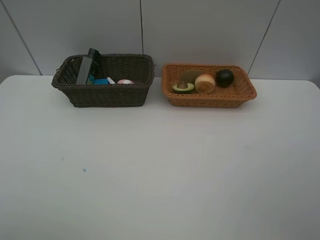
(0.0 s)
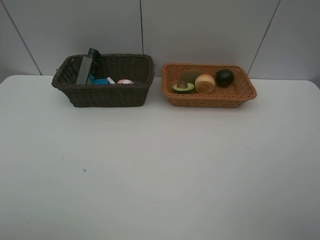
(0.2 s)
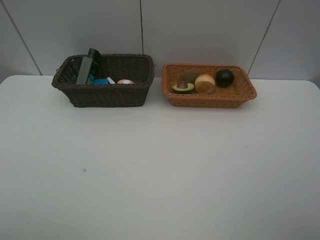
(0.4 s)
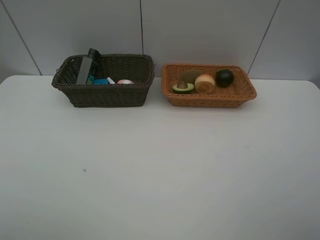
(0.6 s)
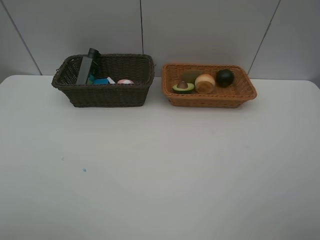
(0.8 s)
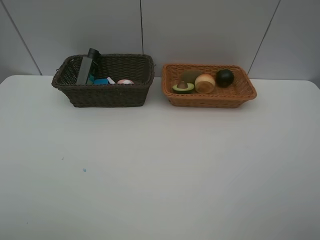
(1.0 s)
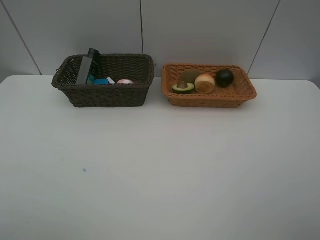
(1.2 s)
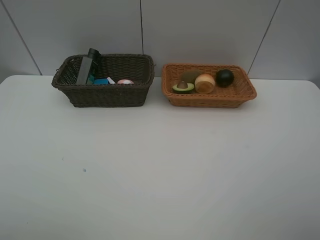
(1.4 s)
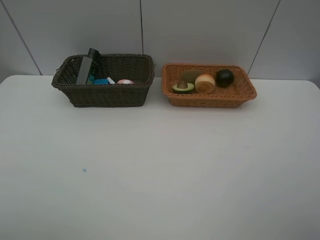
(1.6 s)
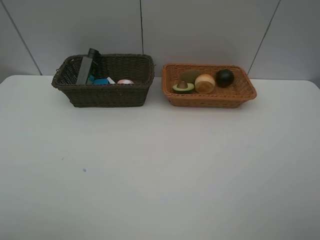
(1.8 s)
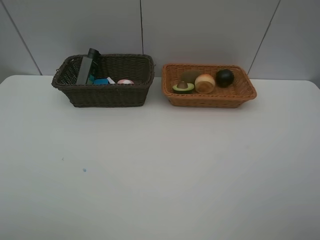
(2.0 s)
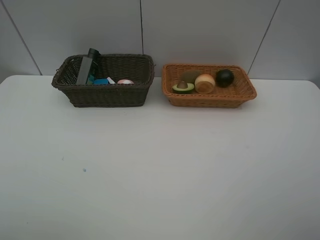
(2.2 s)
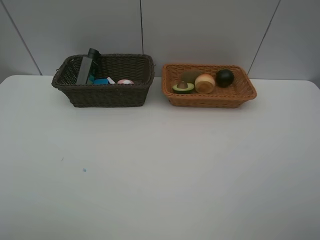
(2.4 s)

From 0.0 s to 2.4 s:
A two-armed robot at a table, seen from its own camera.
Task of the whole recording: Place multiple objects separately in different baskets.
From 1.2 s to 2.4 s: Neither gripper changes place.

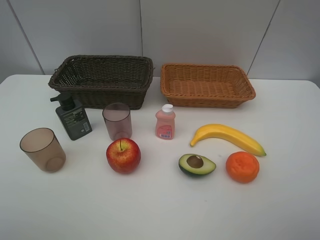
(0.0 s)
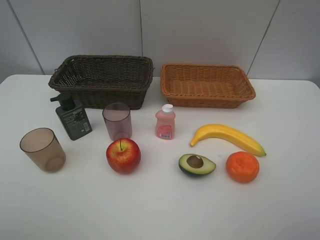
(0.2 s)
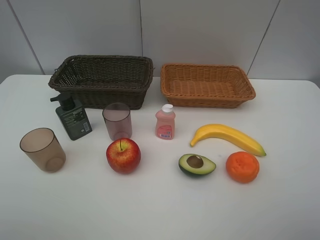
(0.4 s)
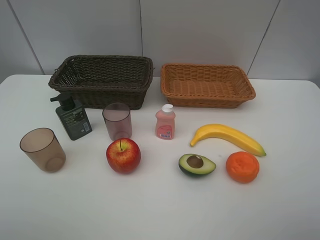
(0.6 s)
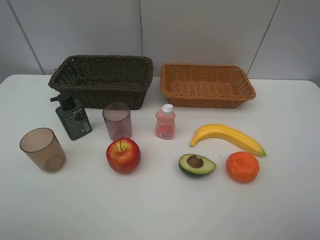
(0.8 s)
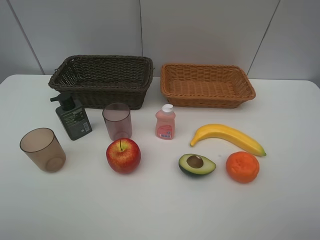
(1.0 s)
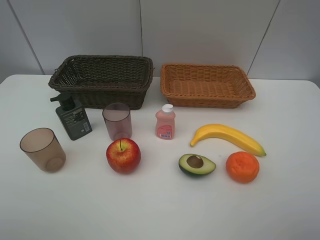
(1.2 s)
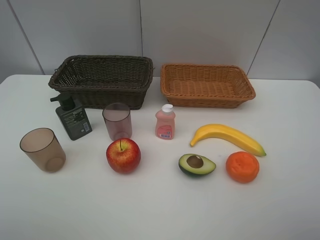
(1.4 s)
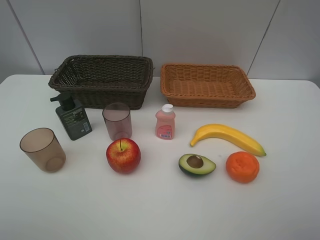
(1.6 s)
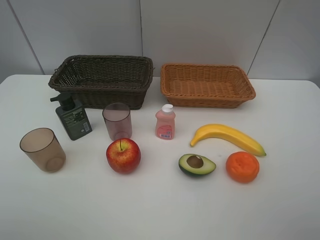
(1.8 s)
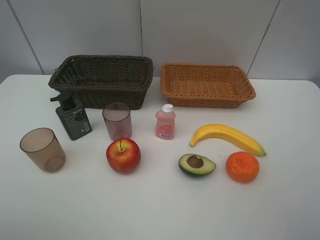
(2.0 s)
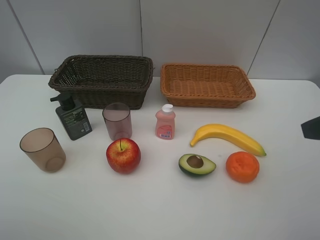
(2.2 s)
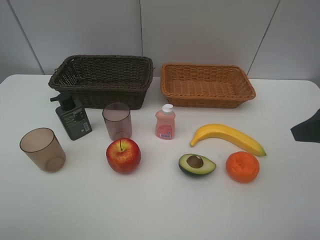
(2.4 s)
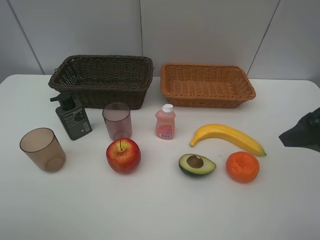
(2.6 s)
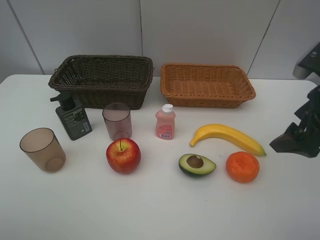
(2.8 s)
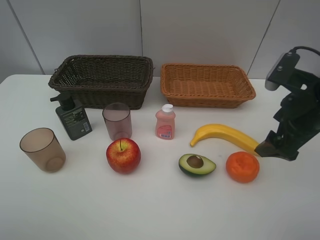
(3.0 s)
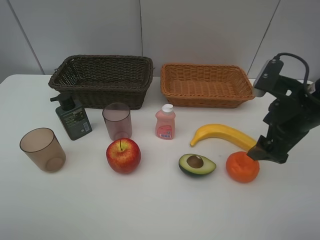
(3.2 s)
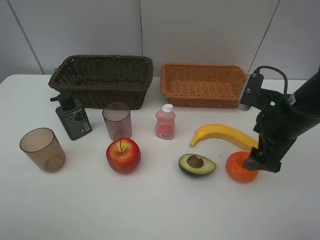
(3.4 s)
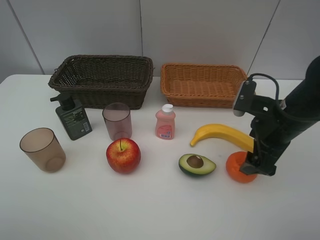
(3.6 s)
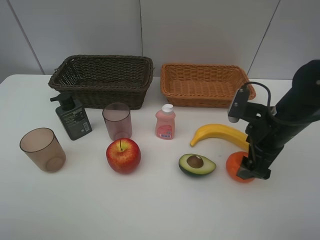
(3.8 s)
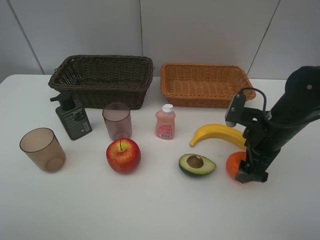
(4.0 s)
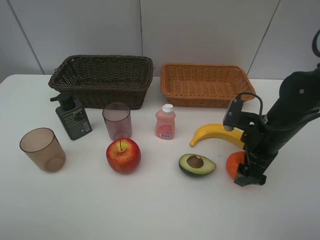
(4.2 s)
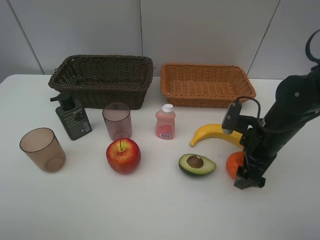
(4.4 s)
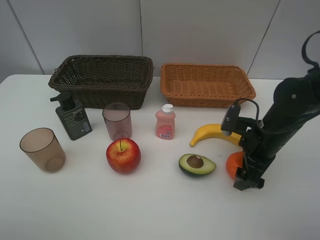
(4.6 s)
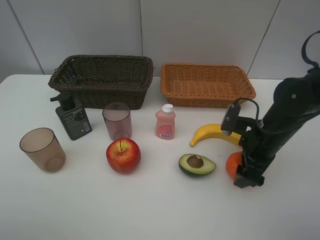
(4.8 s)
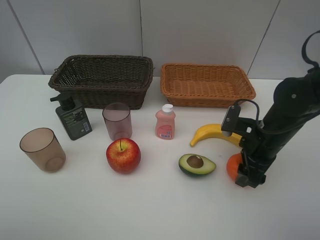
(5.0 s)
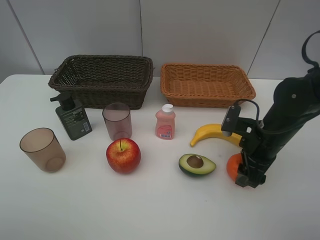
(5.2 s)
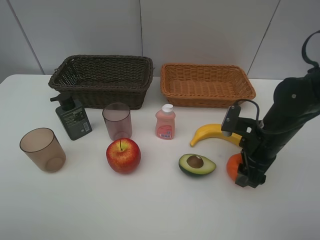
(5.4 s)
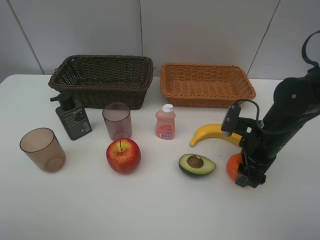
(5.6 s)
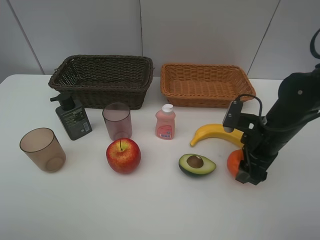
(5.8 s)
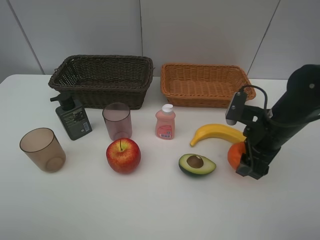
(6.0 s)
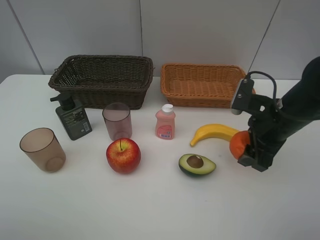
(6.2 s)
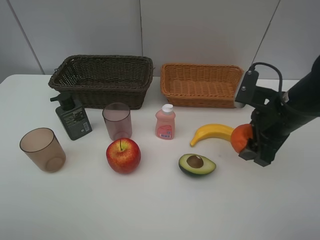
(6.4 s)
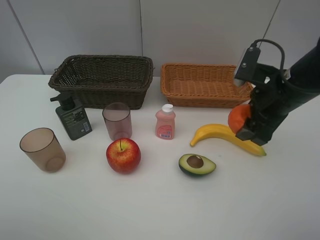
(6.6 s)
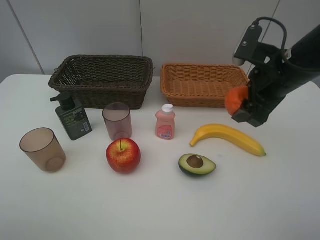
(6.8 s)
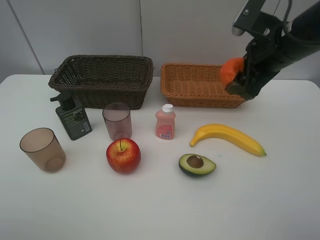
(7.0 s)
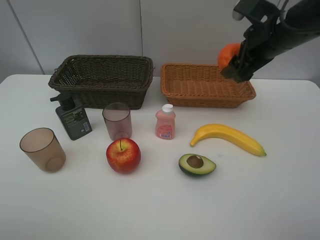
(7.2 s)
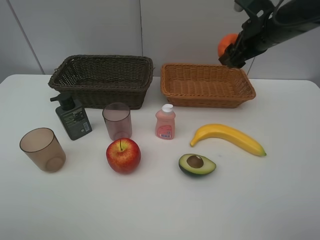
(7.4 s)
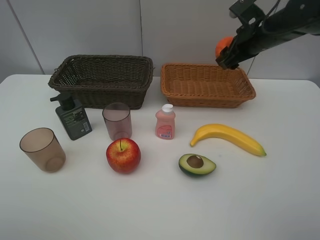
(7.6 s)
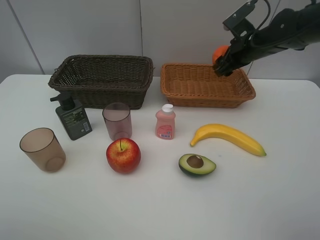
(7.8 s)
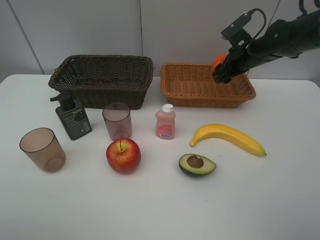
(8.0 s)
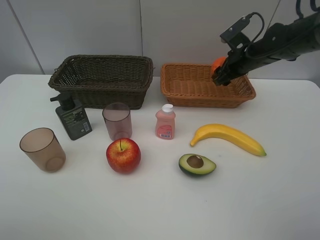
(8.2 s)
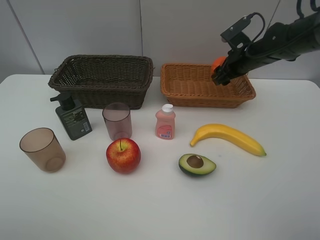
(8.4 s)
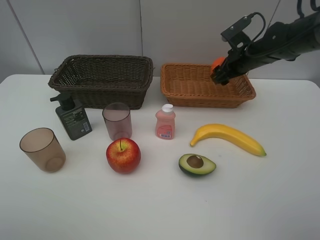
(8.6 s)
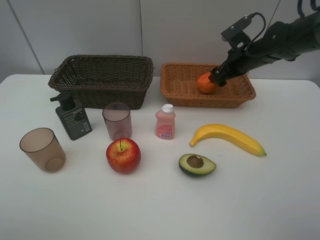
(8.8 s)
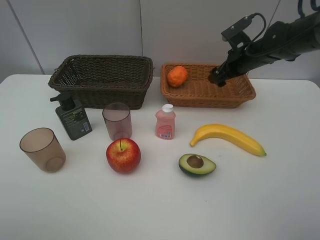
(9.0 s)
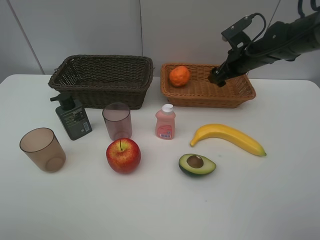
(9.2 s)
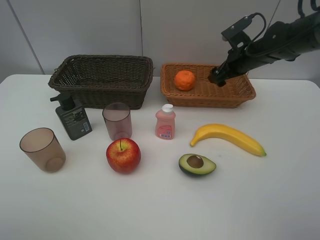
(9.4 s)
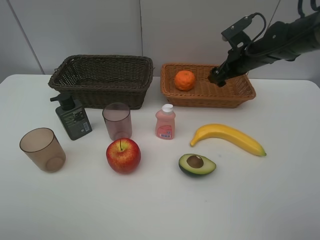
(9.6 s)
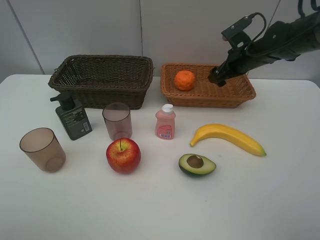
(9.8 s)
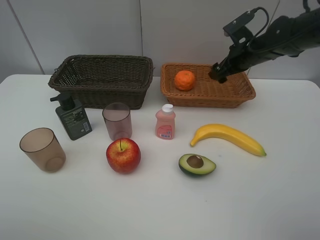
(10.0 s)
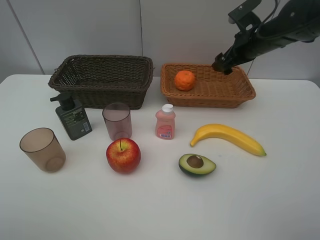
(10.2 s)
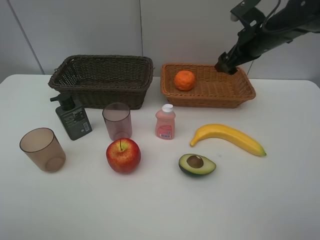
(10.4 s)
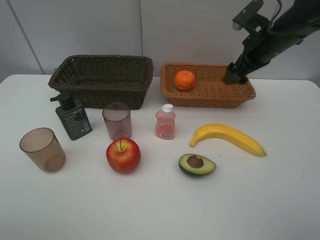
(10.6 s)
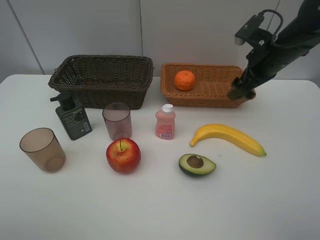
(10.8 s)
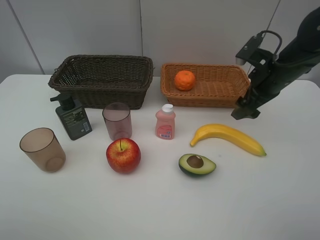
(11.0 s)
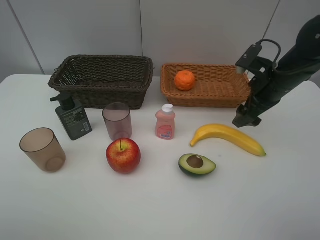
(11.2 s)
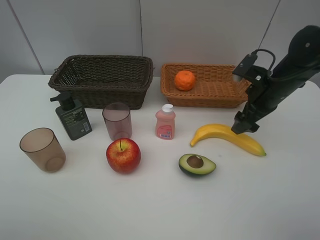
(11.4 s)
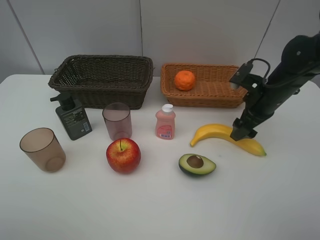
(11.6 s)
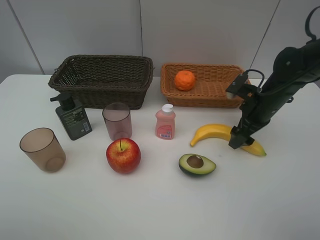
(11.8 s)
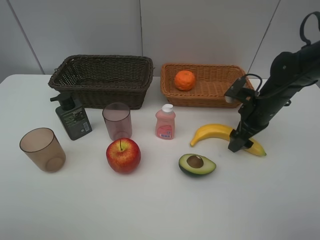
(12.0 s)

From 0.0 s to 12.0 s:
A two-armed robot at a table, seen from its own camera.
Task of the whole recording: Place multiple objects separately in different baskets.
Step, from 0.0 s to 5.8 s: Pick up the orange with right gripper.
Step, from 6.0 s to 8.8 s: Place the orange in the light basket with right gripper.
From 1.6 s to 3.0 s: The right gripper heads forward and downward, covering about 20 cm.
From 3.0 s to 4.4 s: The right gripper travels downward by about 10 cm.
From 4.4 s to 6.0 s: The right gripper closes its fingers.
From 6.0 s to 7.6 s: The right gripper is displaced forward and upward by about 20 cm.
From 7.6 s to 9.0 s: The right gripper heads downward, covering some 5 cm, and opens its fingers.
From 9.0 s to 10.4 s: The right gripper heads upward, covering roughly 5 cm.
From 10.4 s to 12.0 s: The right gripper travels downward and backward by about 15 cm.

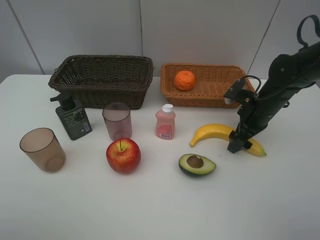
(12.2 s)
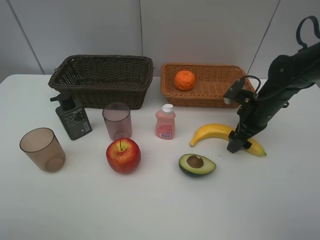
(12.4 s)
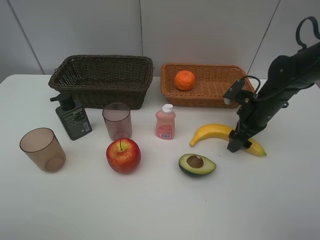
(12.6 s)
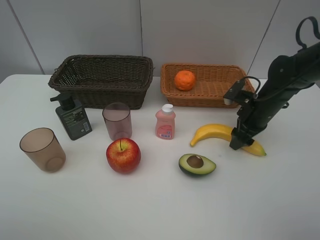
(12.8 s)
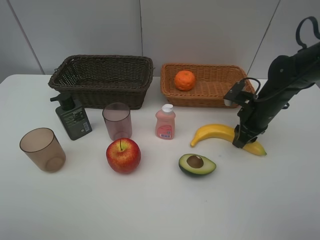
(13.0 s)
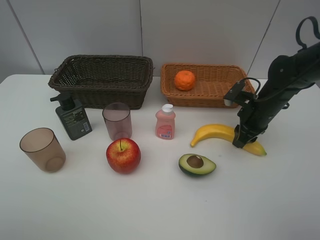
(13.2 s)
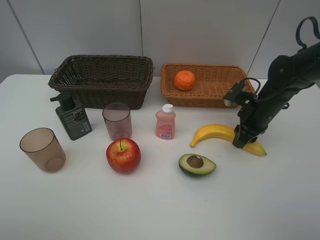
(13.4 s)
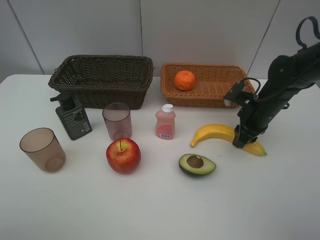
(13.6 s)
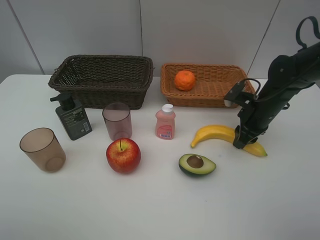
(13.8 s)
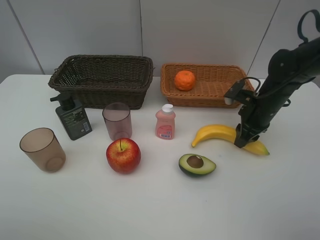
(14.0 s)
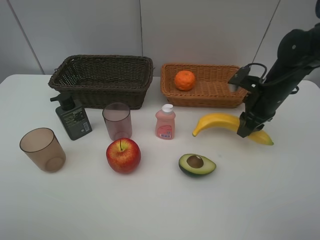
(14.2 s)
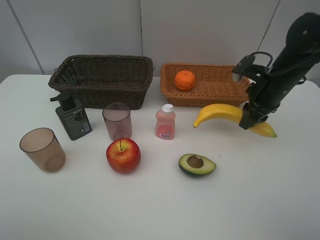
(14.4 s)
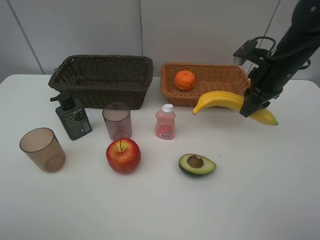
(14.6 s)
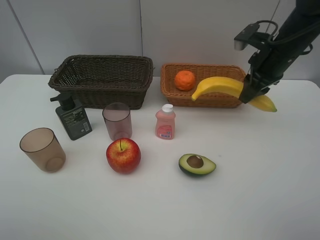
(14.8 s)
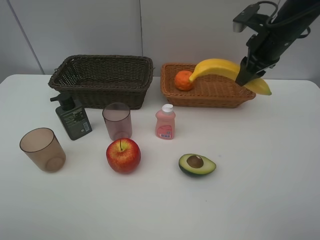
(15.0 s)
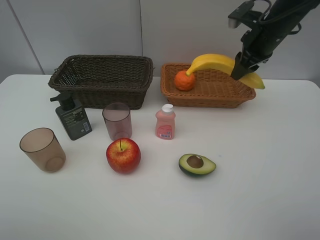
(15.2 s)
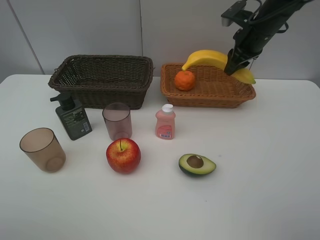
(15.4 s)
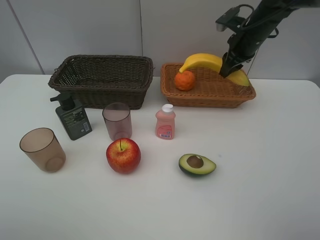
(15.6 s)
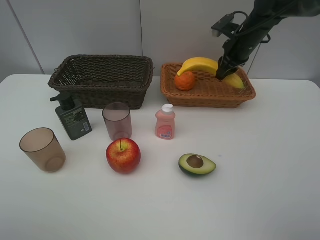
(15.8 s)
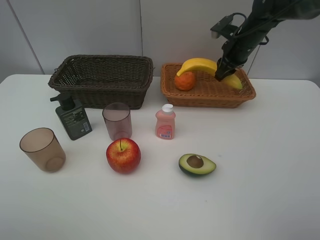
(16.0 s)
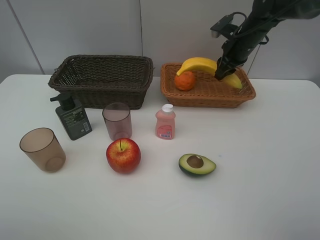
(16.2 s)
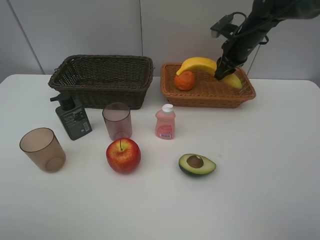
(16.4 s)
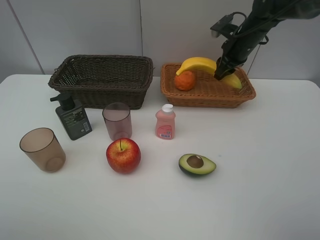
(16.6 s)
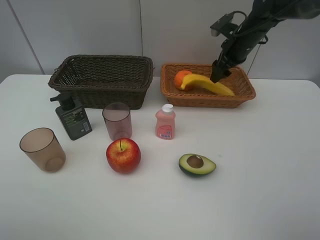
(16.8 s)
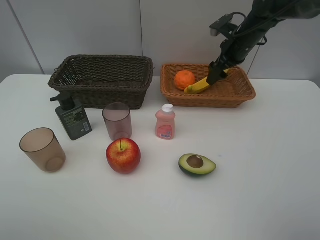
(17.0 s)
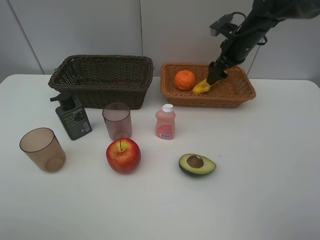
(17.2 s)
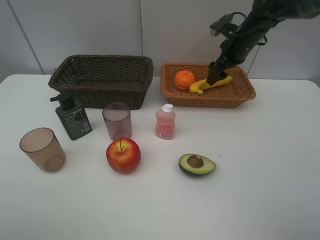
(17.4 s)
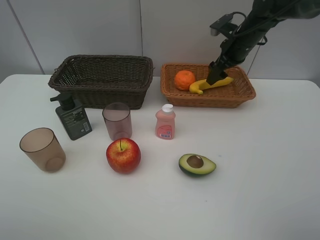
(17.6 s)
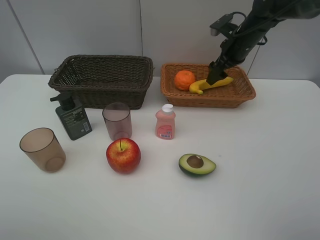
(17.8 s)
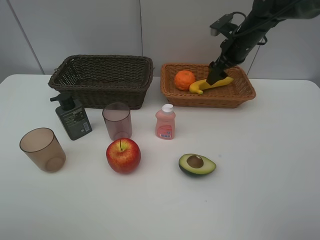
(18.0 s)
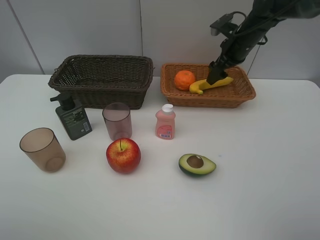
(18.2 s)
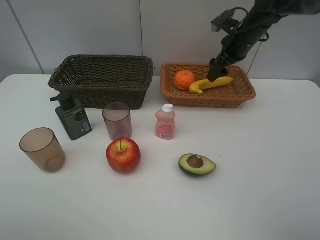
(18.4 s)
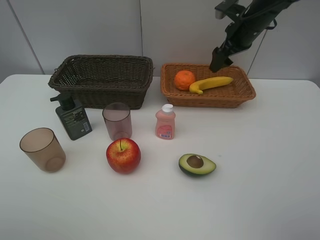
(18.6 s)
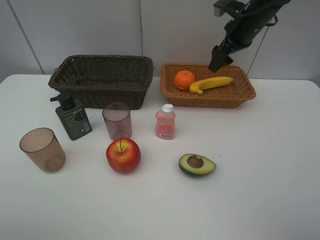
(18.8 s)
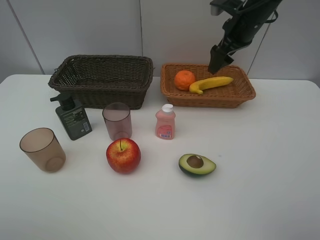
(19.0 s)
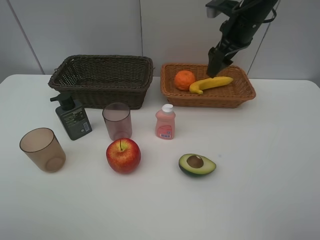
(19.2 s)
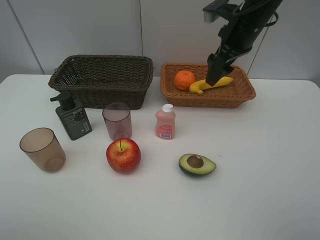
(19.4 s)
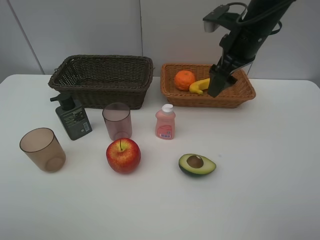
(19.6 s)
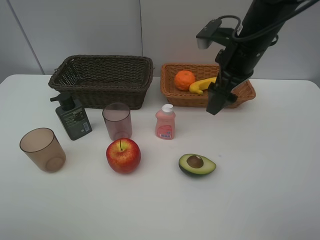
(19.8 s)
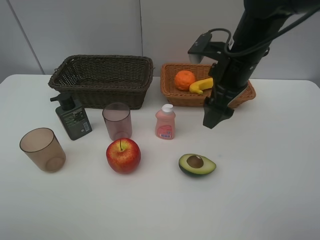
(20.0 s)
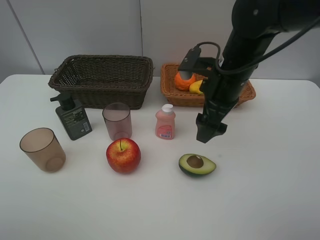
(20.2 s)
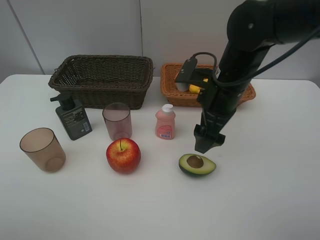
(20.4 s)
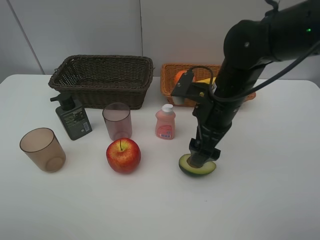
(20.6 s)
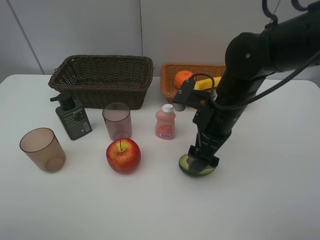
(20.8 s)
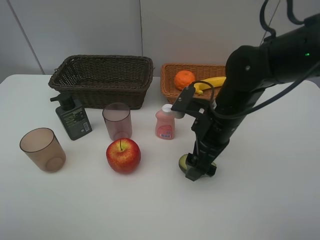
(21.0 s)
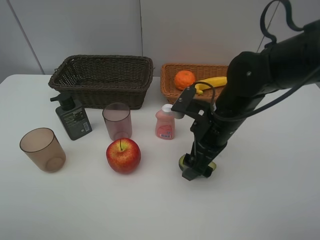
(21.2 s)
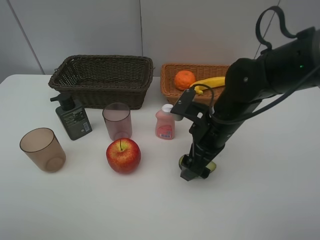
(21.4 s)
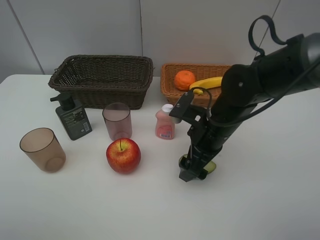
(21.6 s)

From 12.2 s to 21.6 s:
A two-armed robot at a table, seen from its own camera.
Task of the whole recording: Place multiple objects separately in different baskets.
Step, from 14.2 s to 16.8 s: Place the banana in the light basket with right gripper.
From 12.2 s to 13.8 s: The right gripper closes up.
From 13.8 s to 15.4 s: The right gripper goes some 15 cm upward and forward.
From 15.4 s to 17.0 s: The right gripper moves some 5 cm, and opens up.
From 17.0 s to 18.4 s: The two grippers keep their place.
From 18.4 s to 20.0 s: The right gripper goes approximately 20 cm backward and to the left.
From 20.0 s to 21.6 s: The right gripper moves downward and backward, approximately 10 cm.
